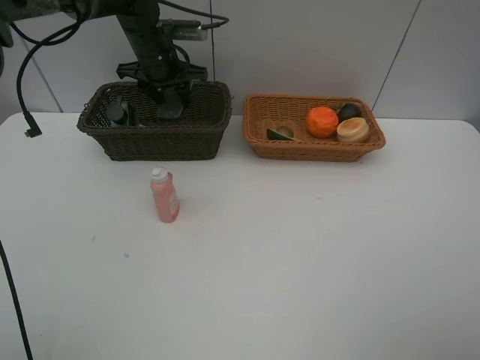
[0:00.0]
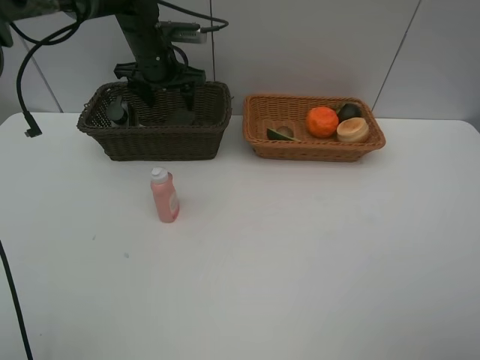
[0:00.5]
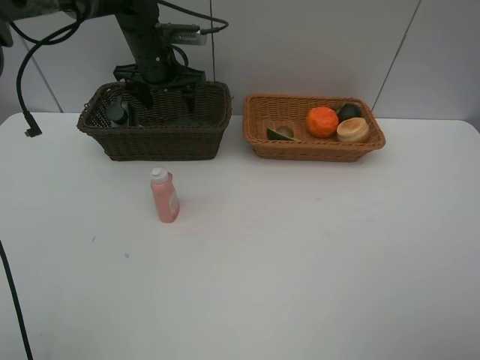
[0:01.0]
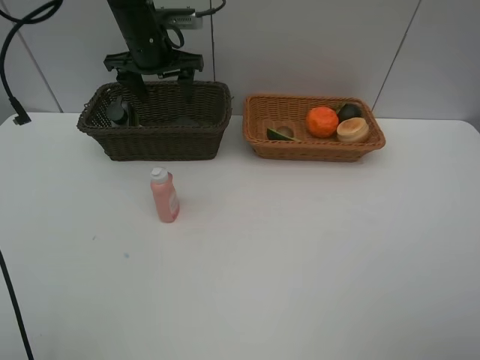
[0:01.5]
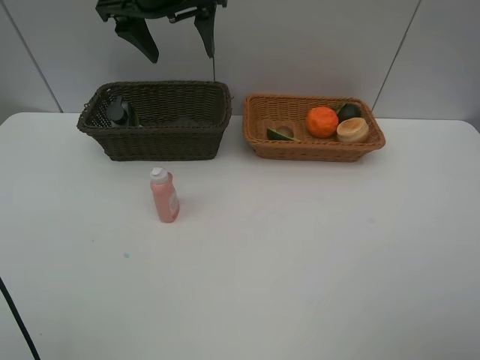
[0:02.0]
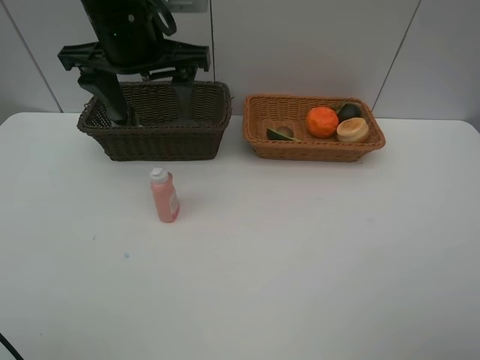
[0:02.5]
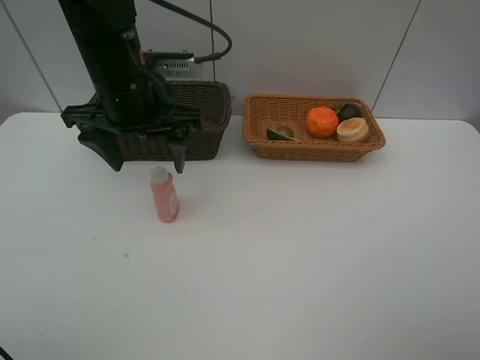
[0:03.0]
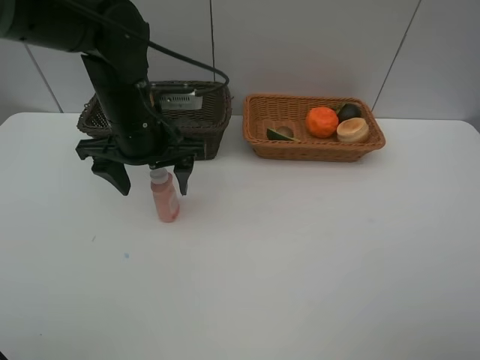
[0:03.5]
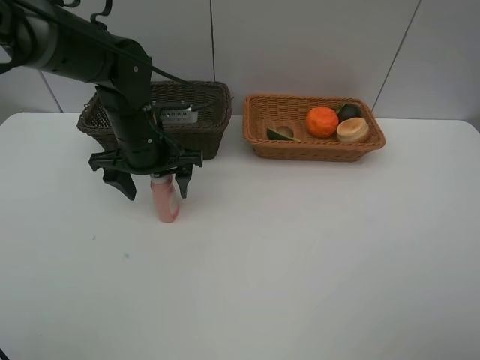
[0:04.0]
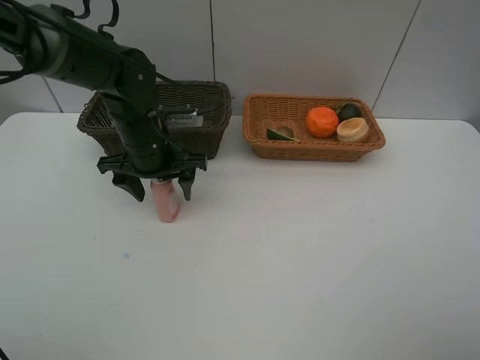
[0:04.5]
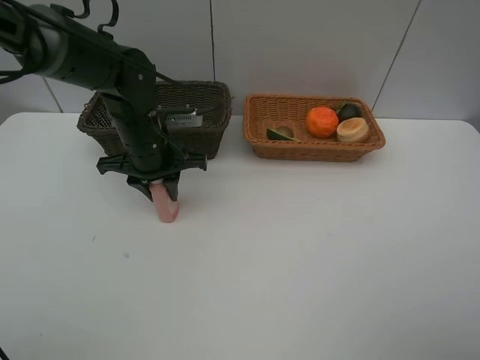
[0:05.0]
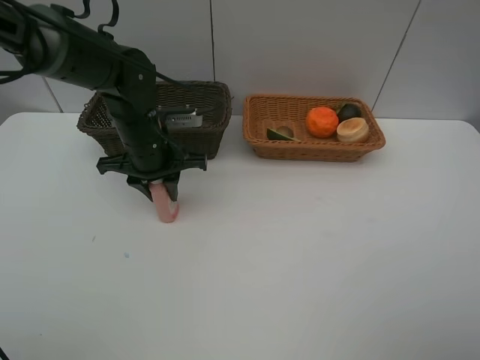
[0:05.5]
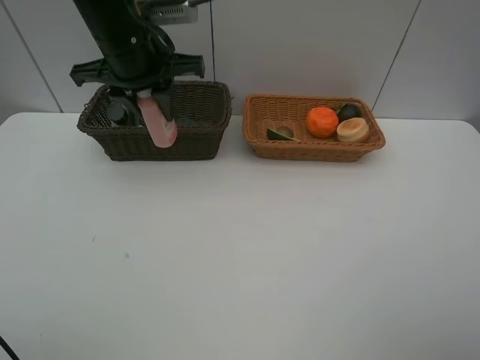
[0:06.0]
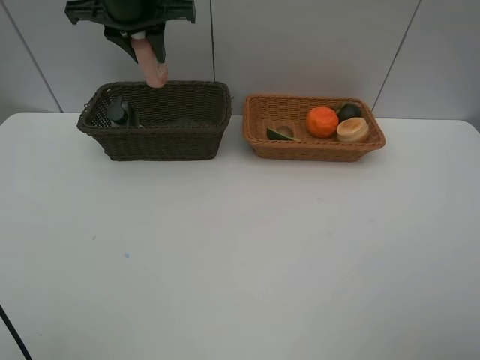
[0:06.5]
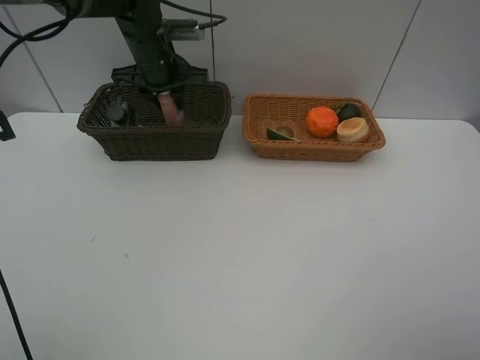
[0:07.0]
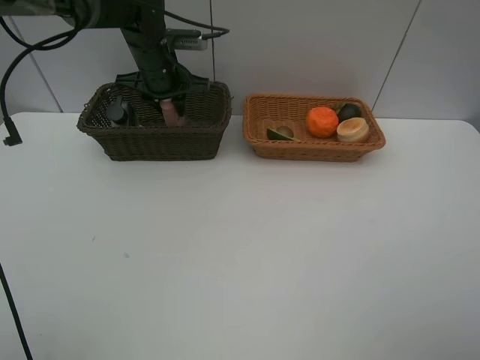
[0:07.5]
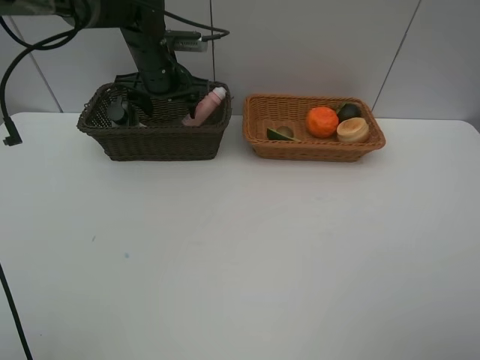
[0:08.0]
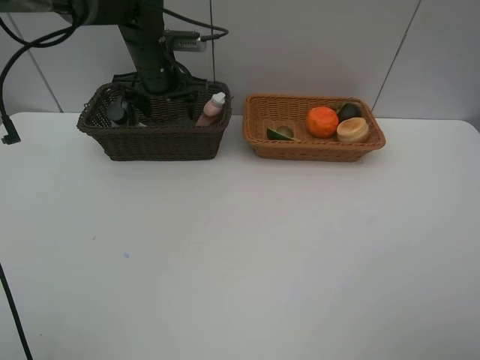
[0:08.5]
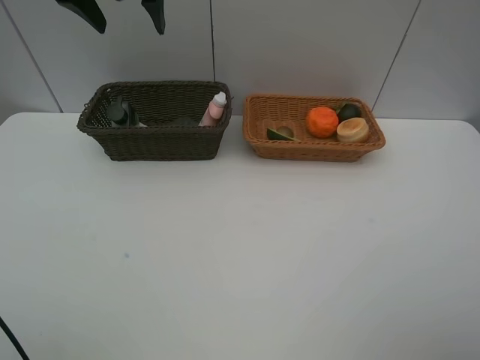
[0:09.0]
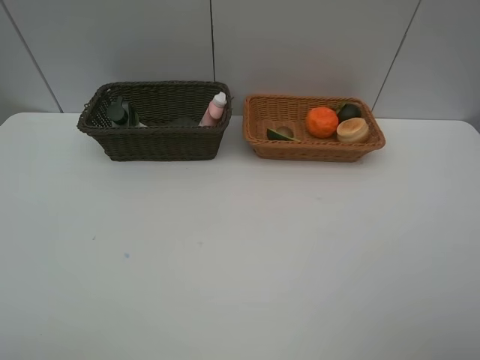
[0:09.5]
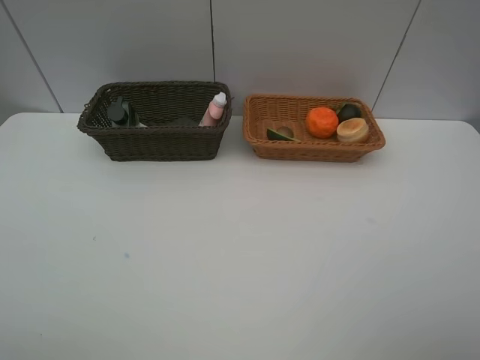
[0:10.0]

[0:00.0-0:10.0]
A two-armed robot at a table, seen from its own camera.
Task of the whole recording: Place multiple objects separately in different baskets.
Step, 0:01.0 to 0:05.5: Pick up the laundry detergent with left gripper.
Step, 0:06.0 to 0:08.0: Place the laundry detergent in the dark basket with left gripper.
0:00.0 to 0:02.0: The left gripper shifts approximately 15 cm upward and backward, and opens up.
0:02.0 to 0:04.0: The left gripper shifts roughly 20 cm downward.
0:04.0 to 0:06.0: The left gripper shifts some 15 cm upward, and closes its fingers.
0:06.0 to 0:08.0: The left gripper travels forward and downward by approximately 15 cm, and opens.
0:08.0 to 0:10.0: The left gripper shifts about 50 cm backward and to the left.

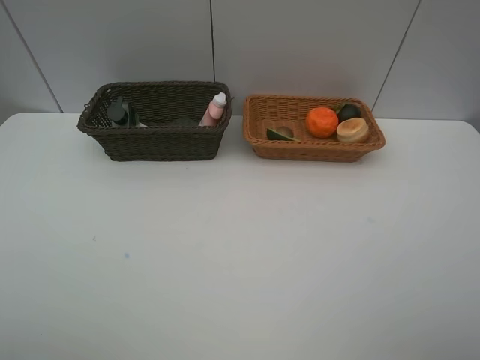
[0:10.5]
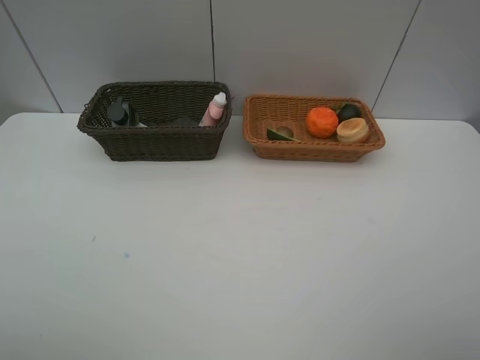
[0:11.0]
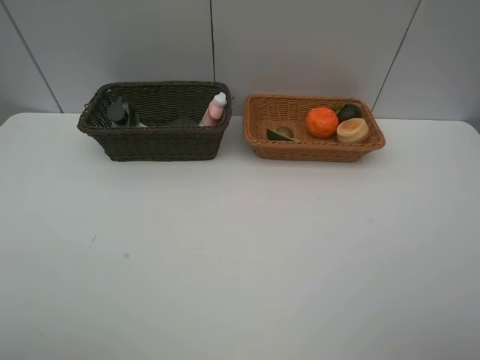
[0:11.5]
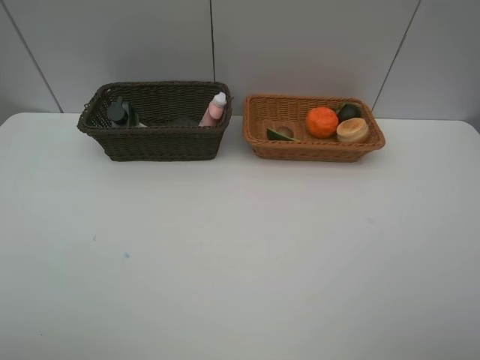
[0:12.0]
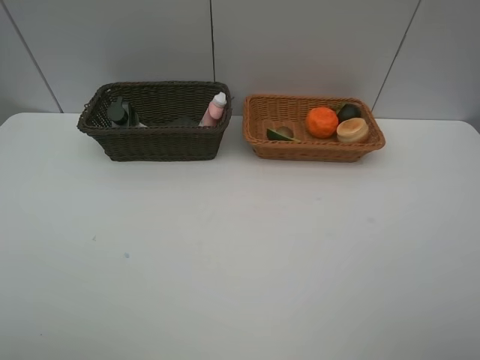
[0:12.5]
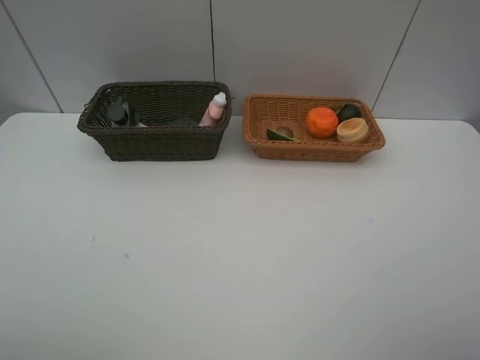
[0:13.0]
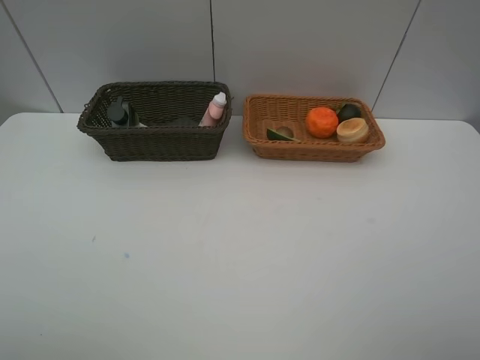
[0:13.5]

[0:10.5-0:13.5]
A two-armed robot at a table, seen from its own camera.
Task of the whole recording: Place multiple objects separately in different baskets.
0:12.0 to 0:13.5: The two grippers keep their place.

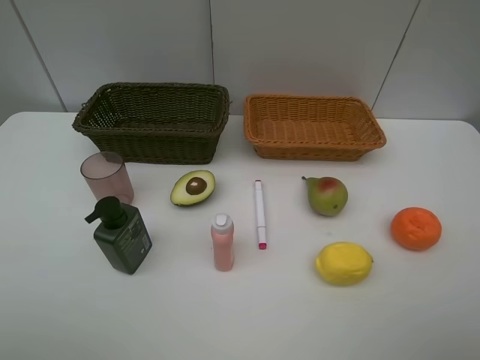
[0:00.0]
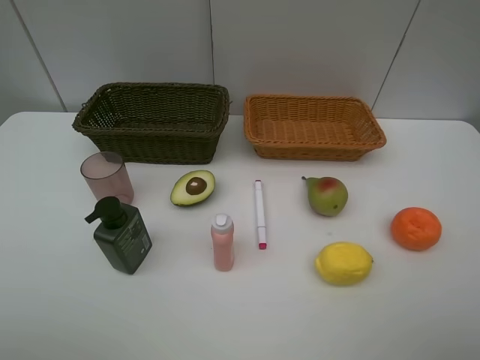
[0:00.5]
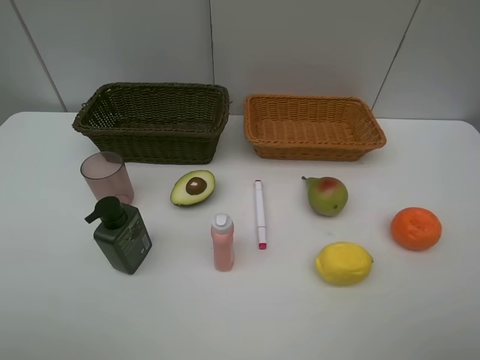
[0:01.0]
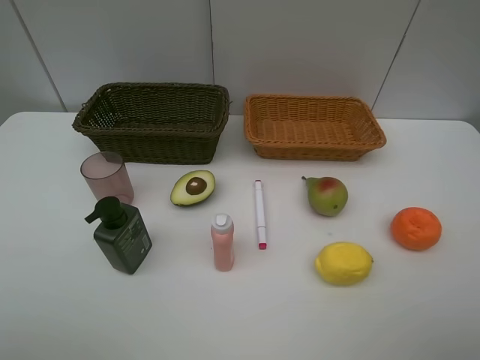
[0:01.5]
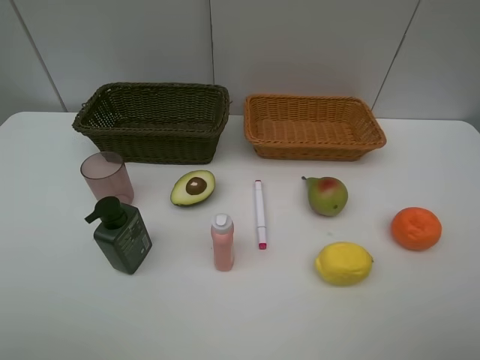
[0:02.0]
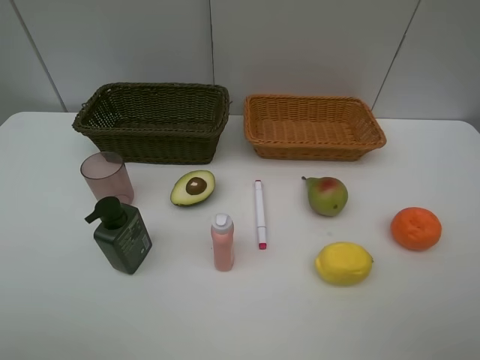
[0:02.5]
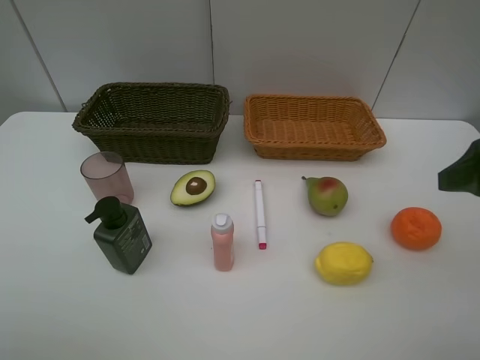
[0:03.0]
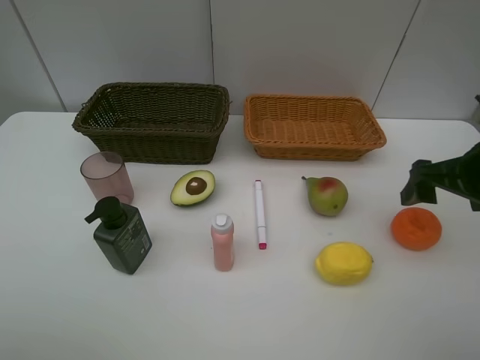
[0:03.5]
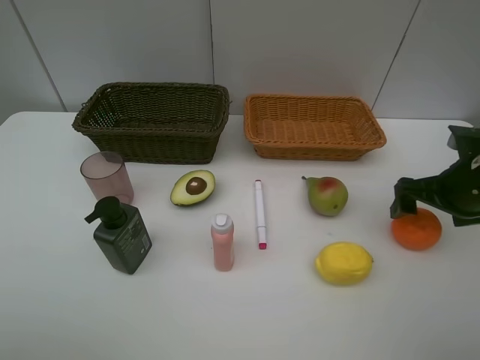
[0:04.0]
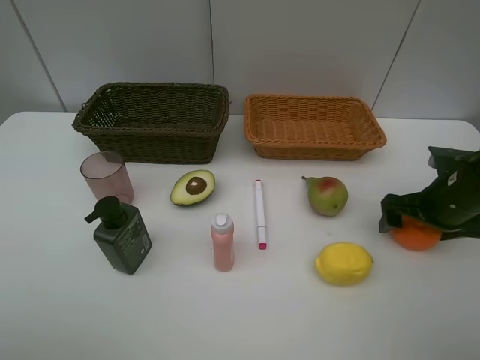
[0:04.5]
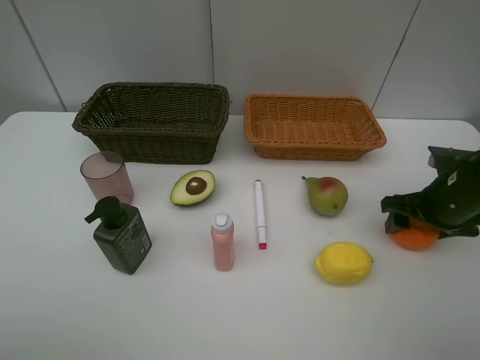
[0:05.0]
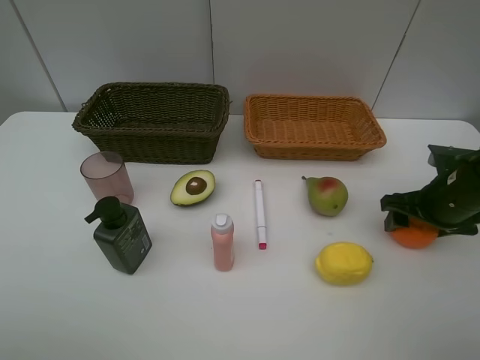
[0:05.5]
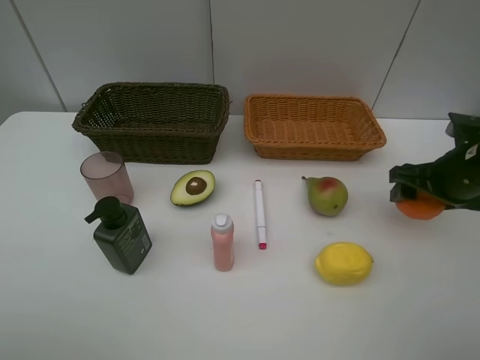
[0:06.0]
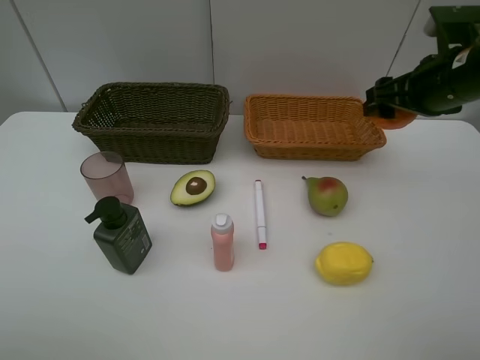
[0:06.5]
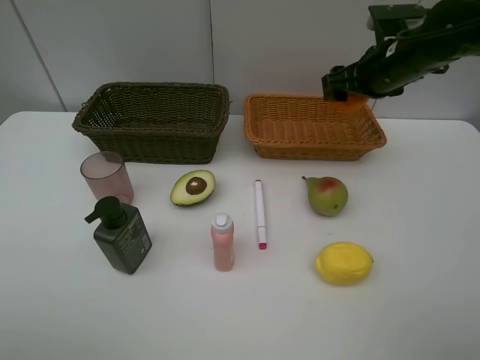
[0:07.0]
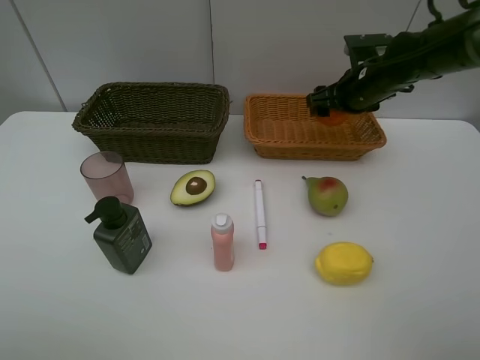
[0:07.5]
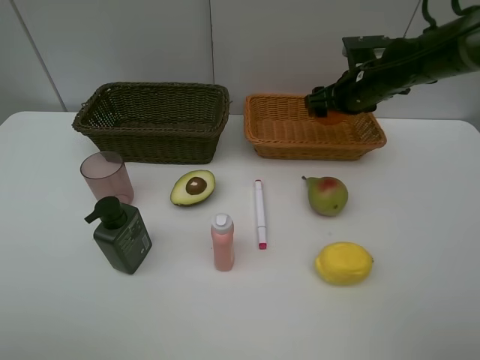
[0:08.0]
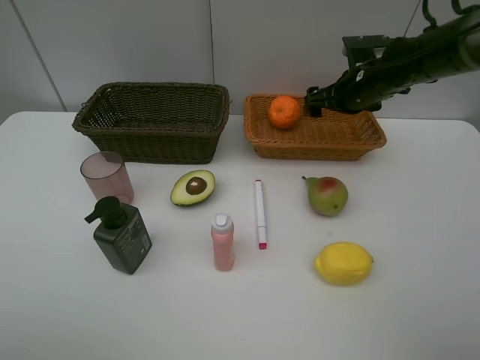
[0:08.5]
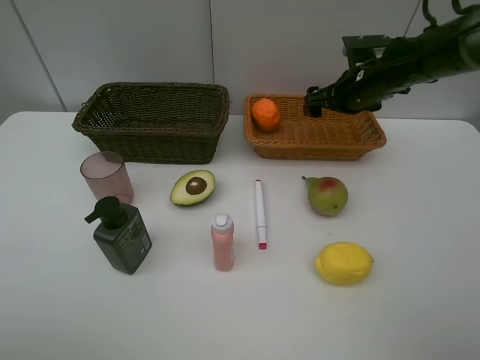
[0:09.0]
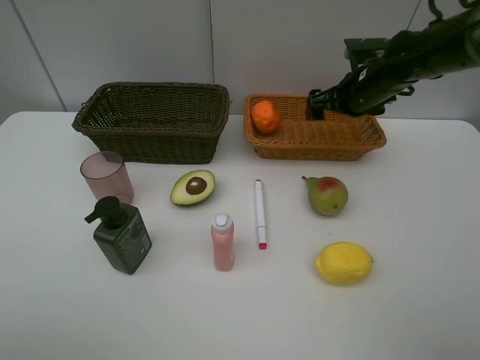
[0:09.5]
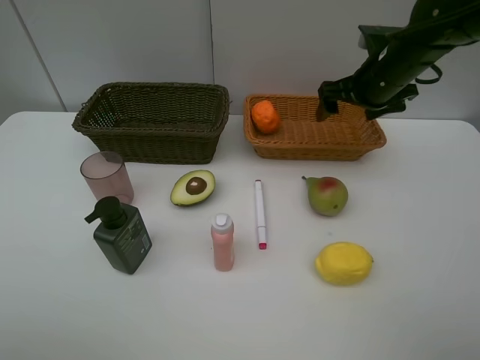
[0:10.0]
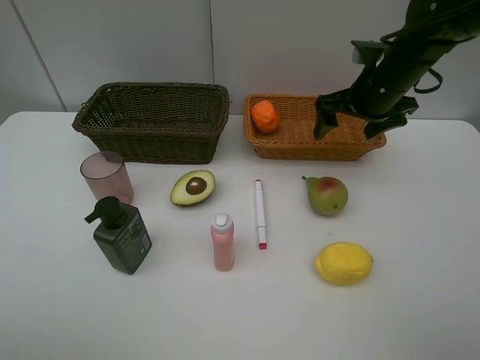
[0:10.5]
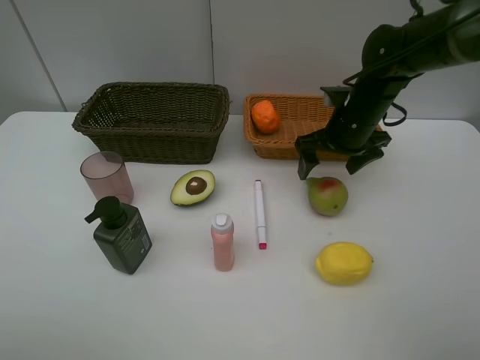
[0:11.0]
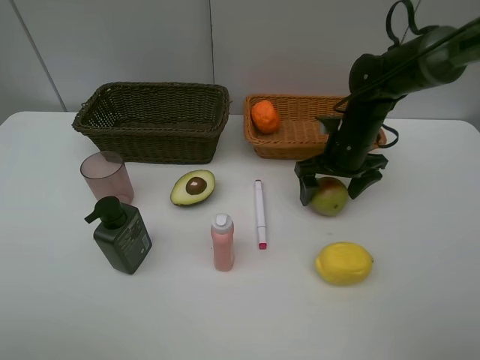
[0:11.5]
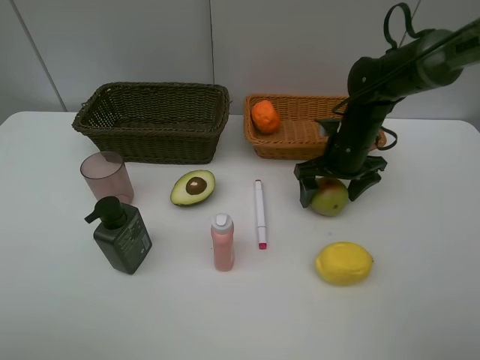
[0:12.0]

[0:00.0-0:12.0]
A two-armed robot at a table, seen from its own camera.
Task of the whole recording: Place multiple objects separately in different baskets.
Step, 0:00.0 to 0:05.5: Pick up the orange with right gripper.
Step, 0:06.0 to 0:08.5: Place the orange in the light basket with right gripper.
0:00.0 to 0:02.0: Neither gripper changes place.
0:02.0 to 0:04.0: The right gripper travels forward and downward by some 30 cm.
0:04.0 to 0:06.0: The grippers move only a little.
0:06.0 to 0:08.0: The right gripper heads forward and to the left, covering roughly 20 cm.
0:08.0 to 0:10.0: The right gripper shifts by about 5 cm.
0:10.0 to 0:12.0: The right gripper is displaced downward by roughly 10 cm.
